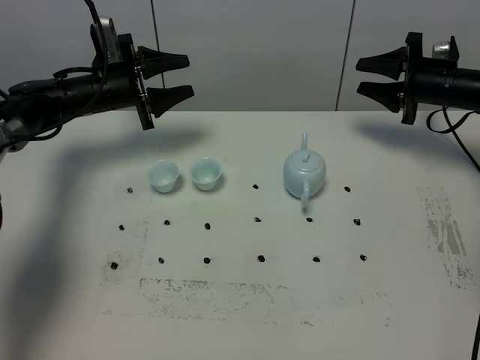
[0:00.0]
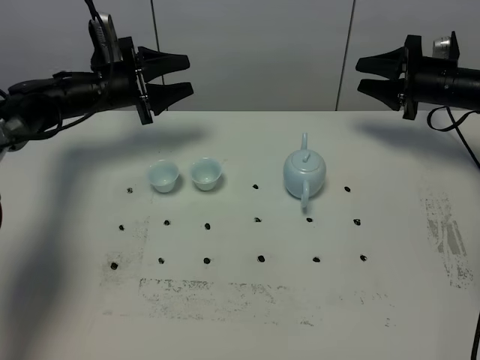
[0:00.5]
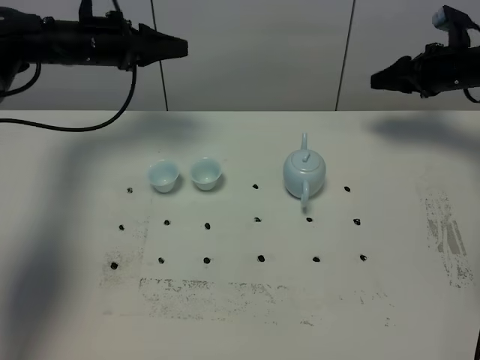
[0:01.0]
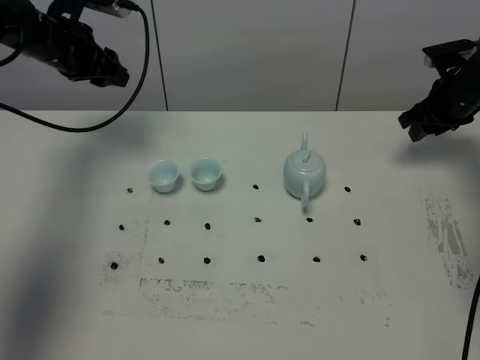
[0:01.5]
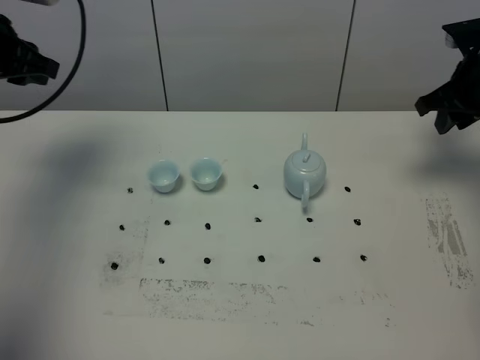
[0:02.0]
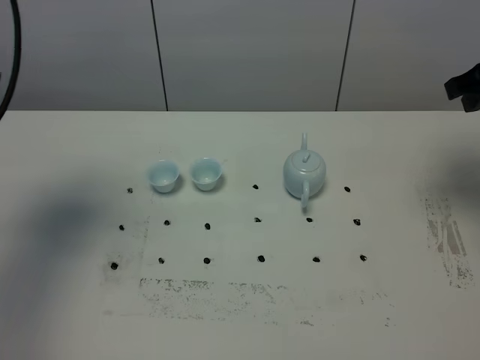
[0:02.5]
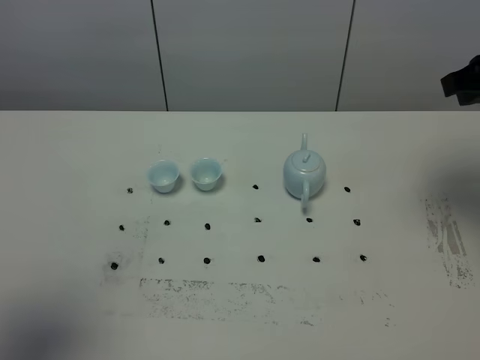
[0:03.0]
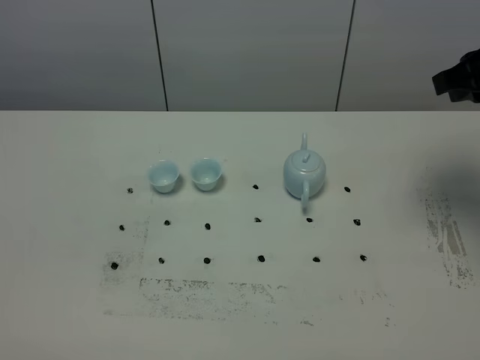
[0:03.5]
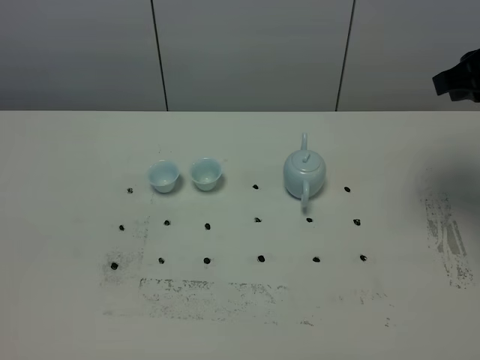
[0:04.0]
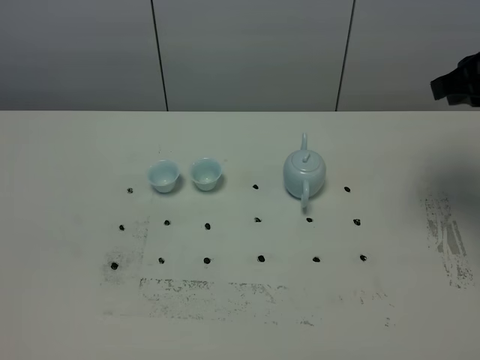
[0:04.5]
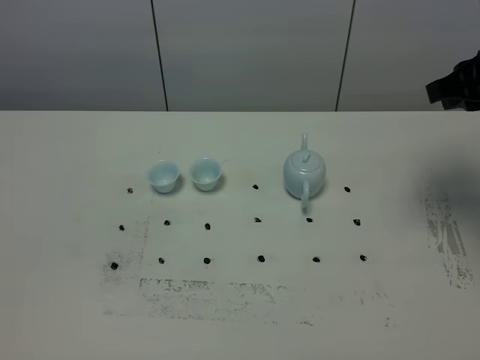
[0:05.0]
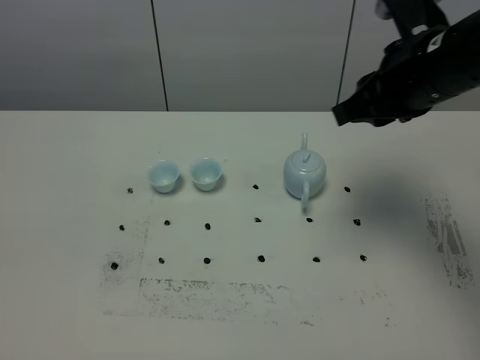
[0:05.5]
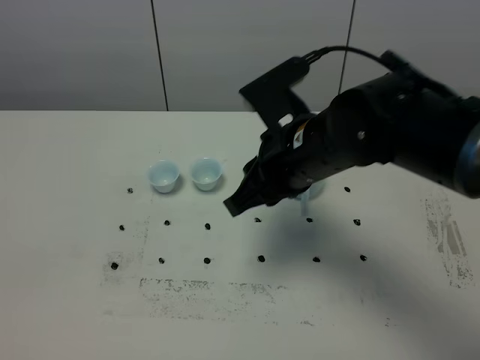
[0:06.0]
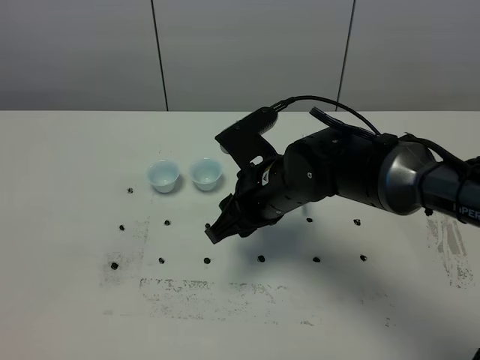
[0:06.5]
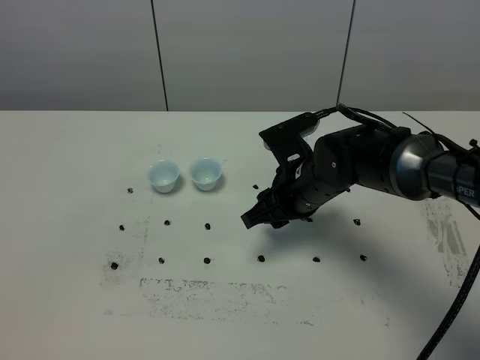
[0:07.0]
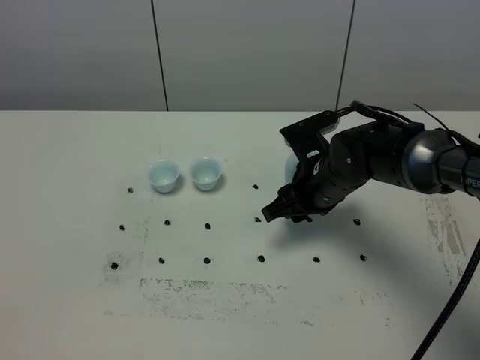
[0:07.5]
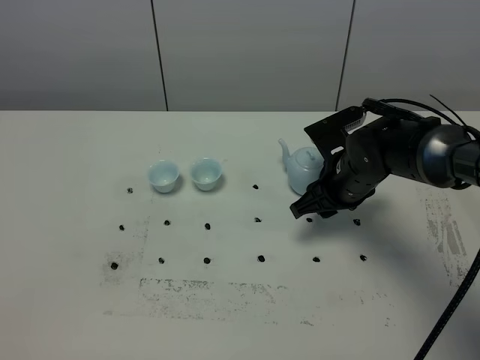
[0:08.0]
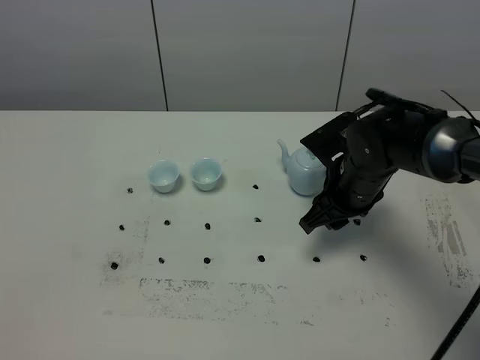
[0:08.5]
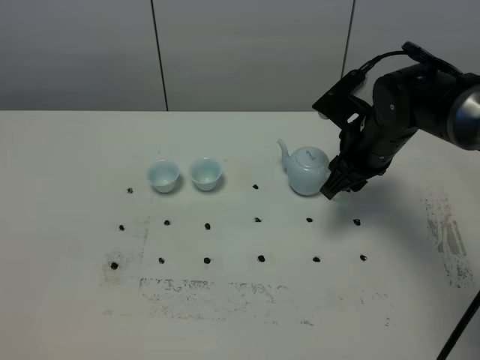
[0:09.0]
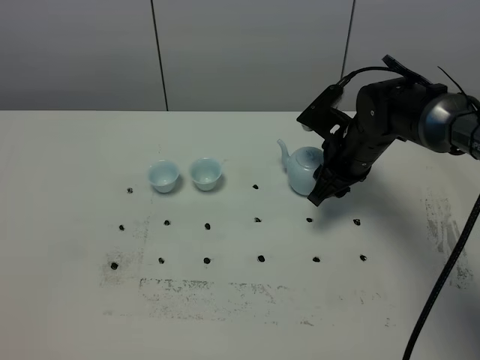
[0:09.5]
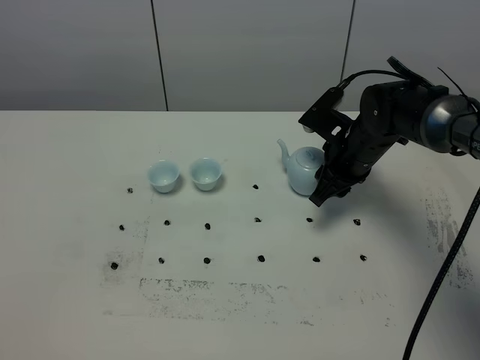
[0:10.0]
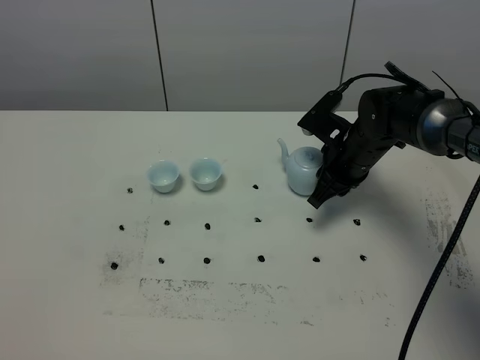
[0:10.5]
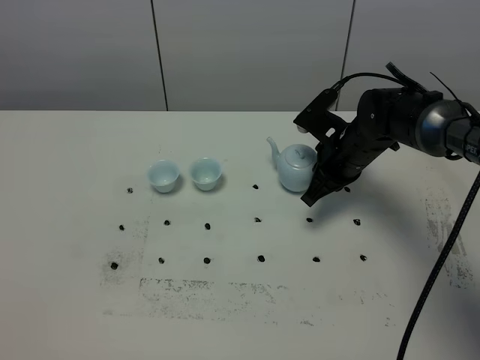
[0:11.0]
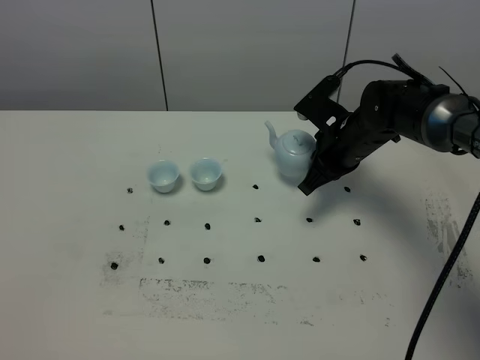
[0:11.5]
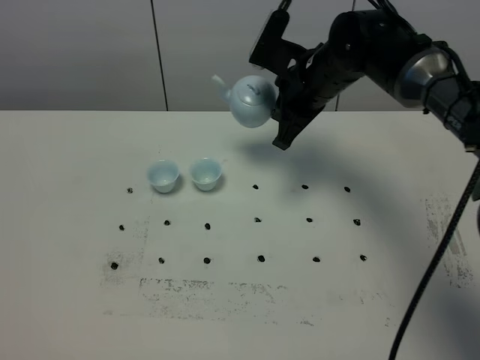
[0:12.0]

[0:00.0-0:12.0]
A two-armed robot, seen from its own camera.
Task of the whole recording: grasp the blue porcelain teapot and pour the tea into the two blue porcelain teacups one by one, put the blue porcelain teapot back in its original place.
Step, 0:00.0 to 0:11.5: Pick up the teapot with the right gripper.
0:00.0 to 0:02.0: The right gripper is displaced upward and backward by some 10 cm, and closes its fingers. Meanwhile the left gripper travels upward, backward and to the left by about 20 cm, and closes up.
0:02.0 to 0:04.0: The right gripper travels backward and upward by some 15 cm. Meanwhile the left gripper is displaced backward by roughly 40 cm.
0:04.0 to 0:06.0: The right gripper goes roughly 25 cm to the left and downward.
0:06.0 to 0:08.0: The right gripper moves downward, forward and to the right, roughly 15 cm.
0:08.0 to 0:10.0: The right gripper heads forward, covering roughly 5 cm.
0:10.0 to 0:12.0: The right gripper is displaced upward and to the left by approximately 10 cm, and closes.

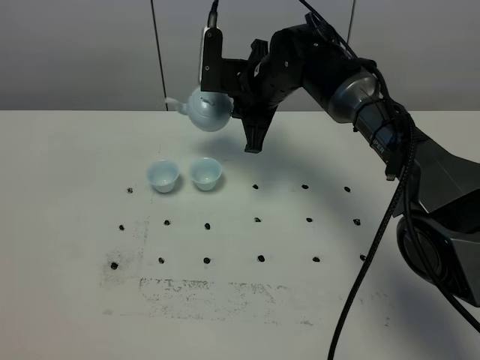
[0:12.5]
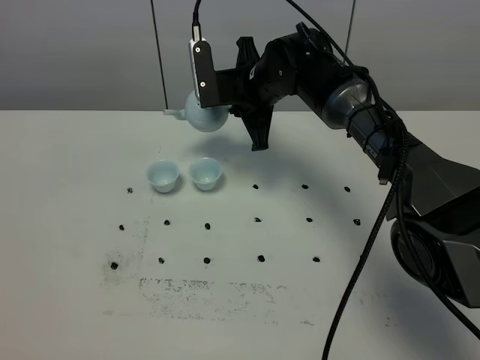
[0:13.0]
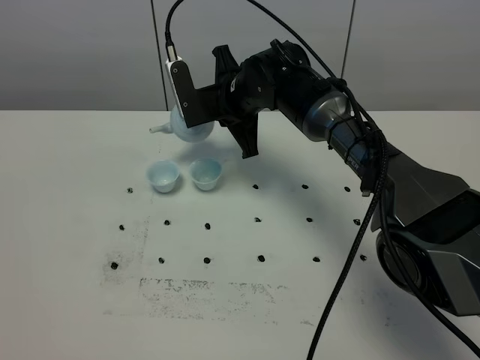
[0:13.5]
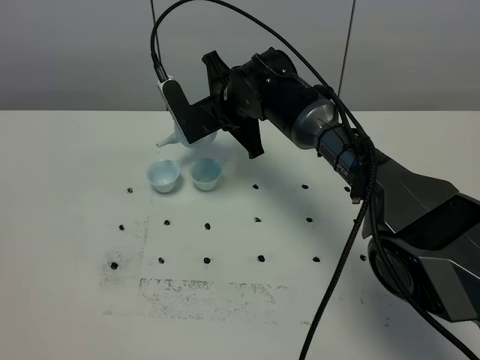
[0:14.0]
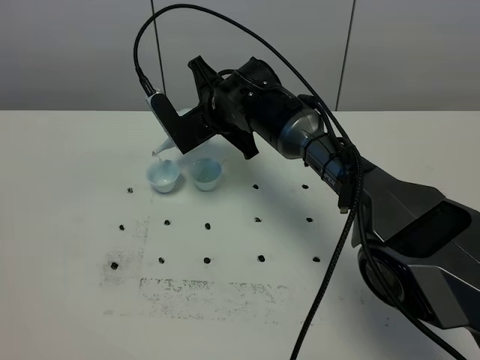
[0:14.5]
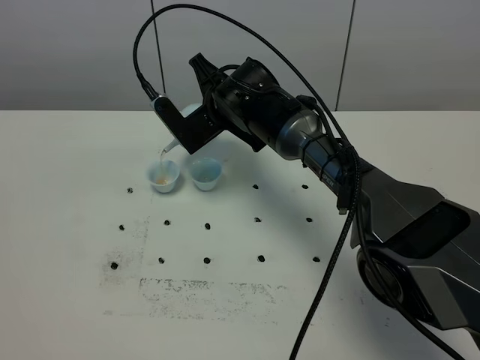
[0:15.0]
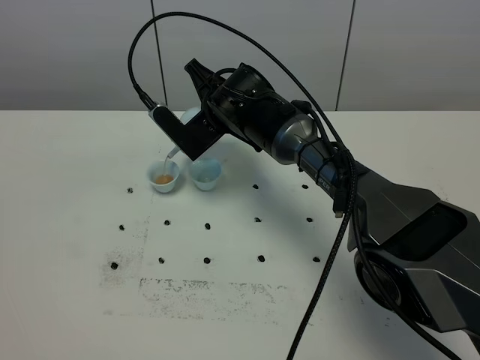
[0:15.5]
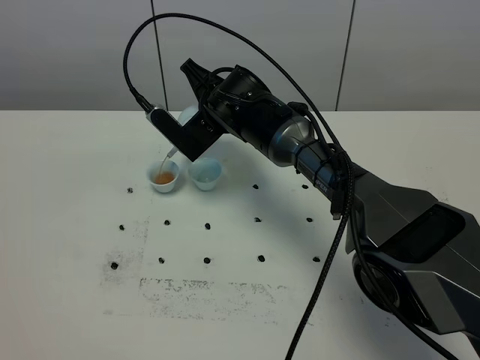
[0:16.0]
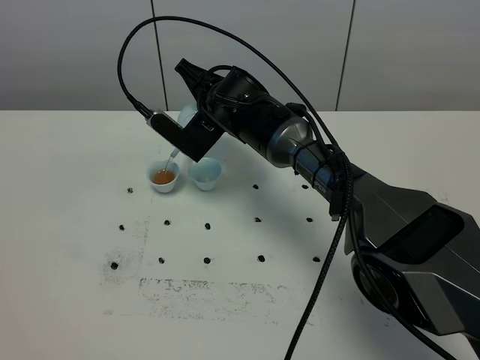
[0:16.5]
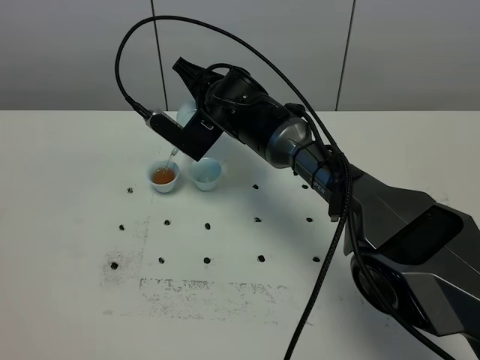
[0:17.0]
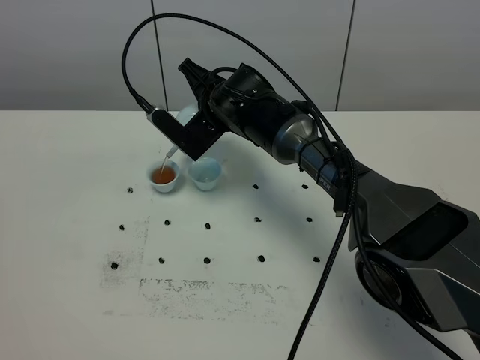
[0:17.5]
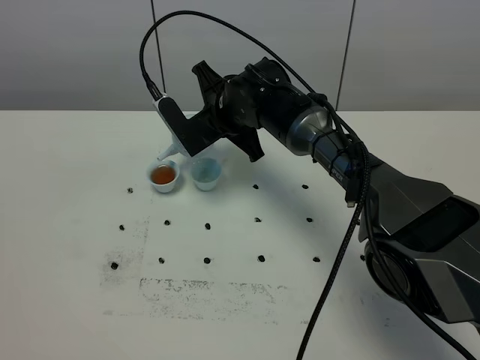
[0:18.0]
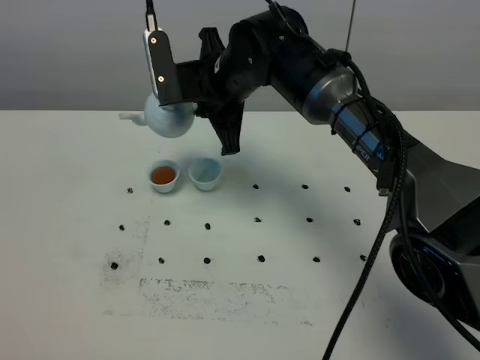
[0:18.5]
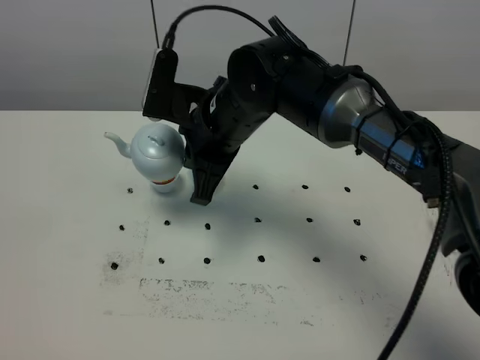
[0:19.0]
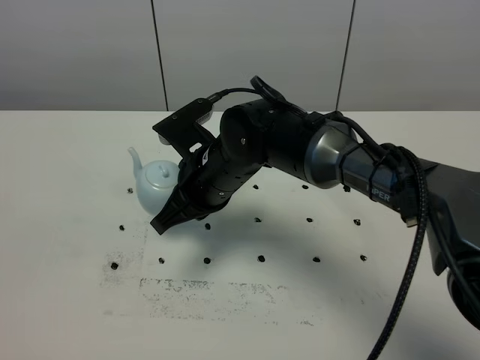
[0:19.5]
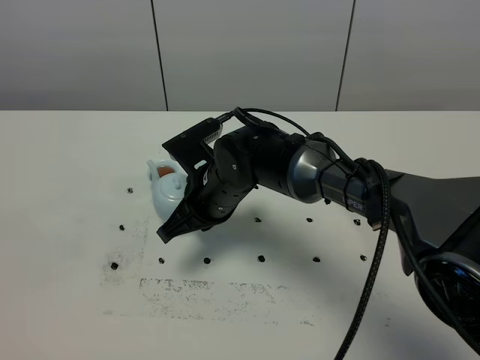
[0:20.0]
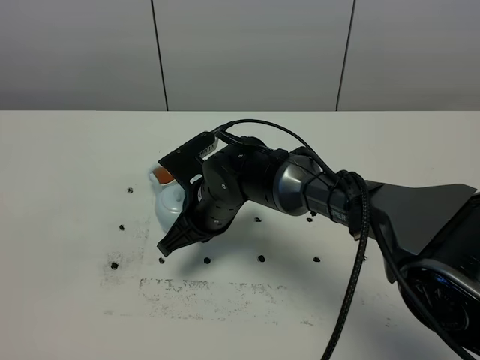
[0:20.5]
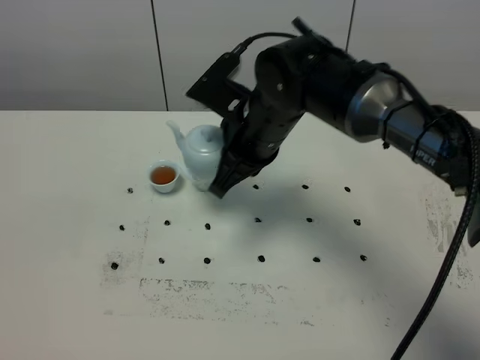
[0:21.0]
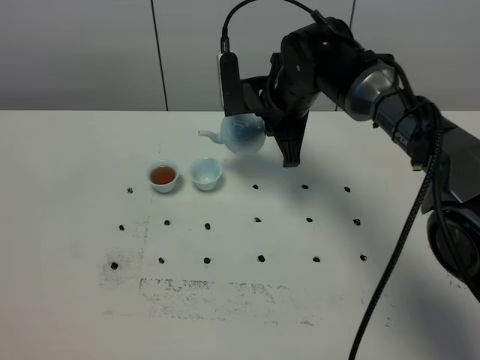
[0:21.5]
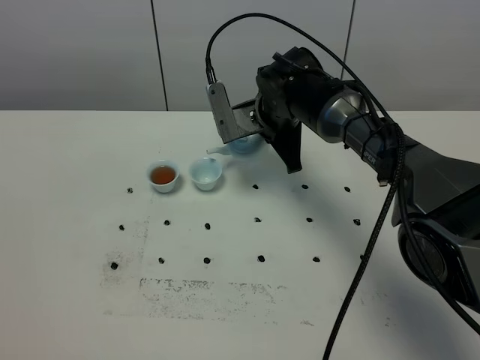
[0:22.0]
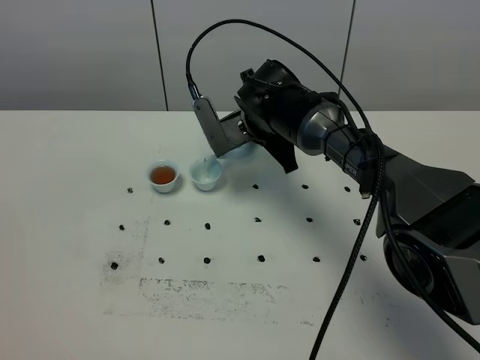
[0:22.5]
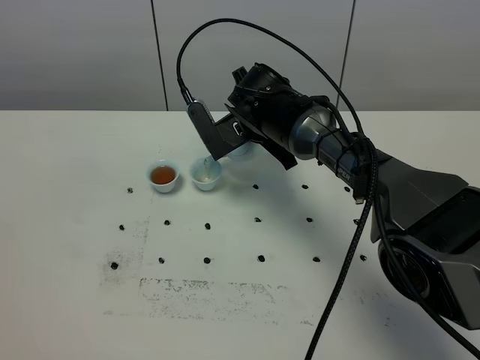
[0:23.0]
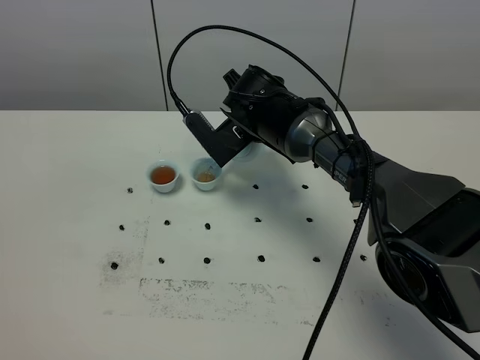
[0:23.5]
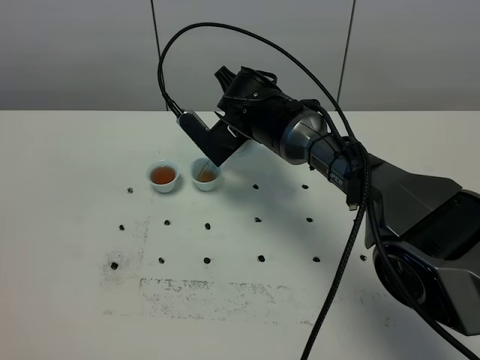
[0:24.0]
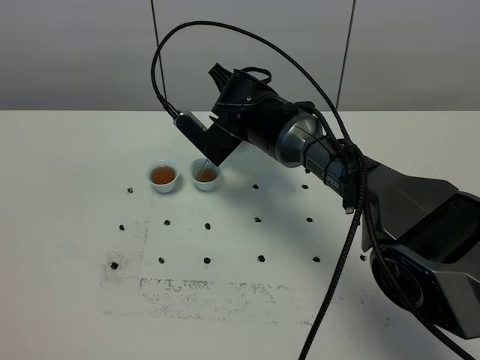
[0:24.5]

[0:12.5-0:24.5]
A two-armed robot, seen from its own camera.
Task of the whole recording: grasp the blue porcelain teapot and pour the tea into the two blue porcelain teacups one by one, put the blue porcelain teapot back in its original place.
Step, 0:12.5 to 0:17.5: Pour tea into the teacup with the right gripper.
0:12.5 to 0:14.5: The right gripper ends up about 5 cm from where it was.
0:16.5 to 0:18.5: The right gripper is displaced upward by approximately 5 cm.
0:18.5 to 0:20.5: The right gripper goes about 15 cm downward and backward.
0:20.5 to 0:22.5: The right gripper travels forward by roughly 10 cm.

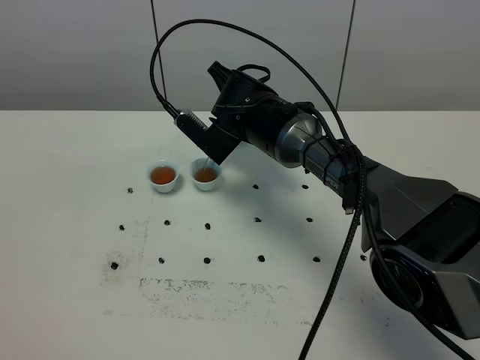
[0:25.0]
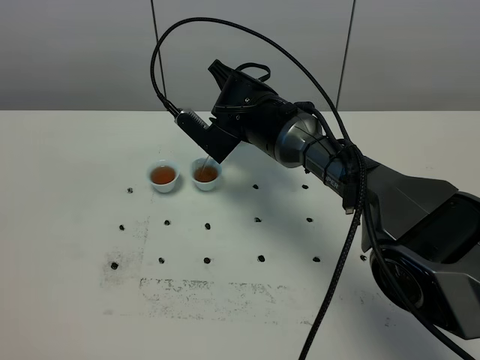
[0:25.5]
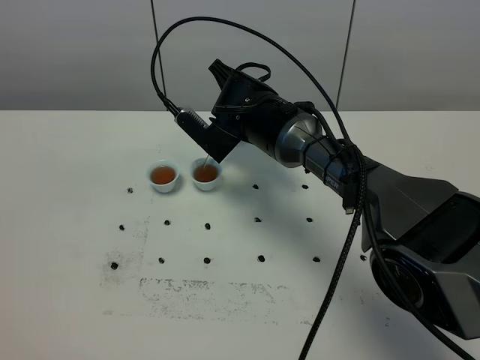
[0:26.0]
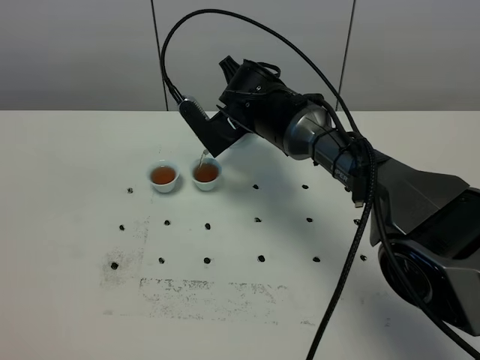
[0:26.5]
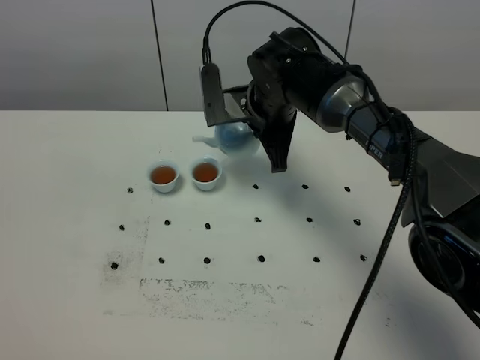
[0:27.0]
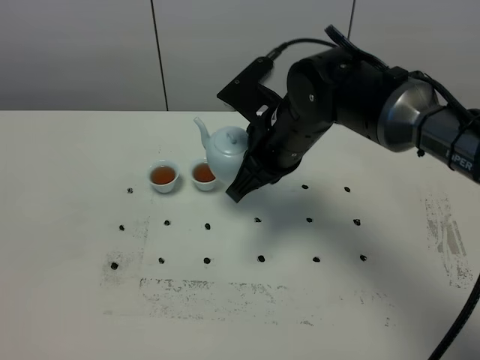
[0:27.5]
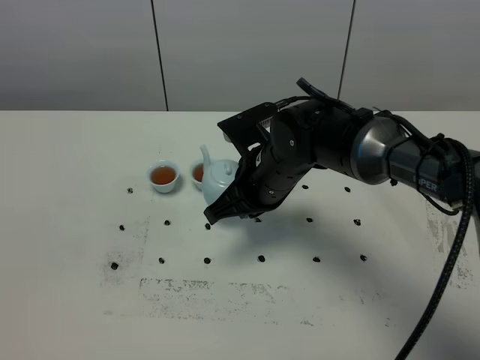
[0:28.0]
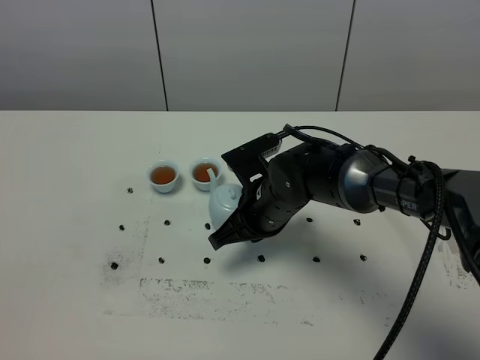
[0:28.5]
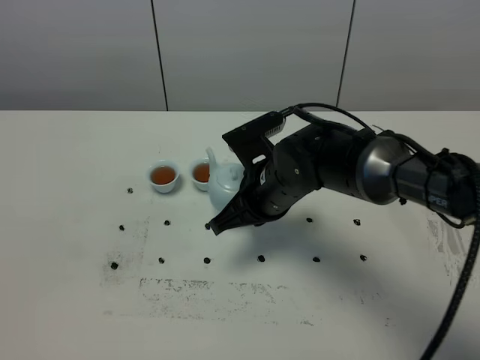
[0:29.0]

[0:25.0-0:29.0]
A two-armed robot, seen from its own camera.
Task of the whole recording: grasp the blue porcelain teapot and pour the tea into the two blue porcelain teacups one by one, put the blue porcelain teapot back in its original place.
0:27.0 to 0:29.0: The right gripper travels backward by roughly 10 cm.
